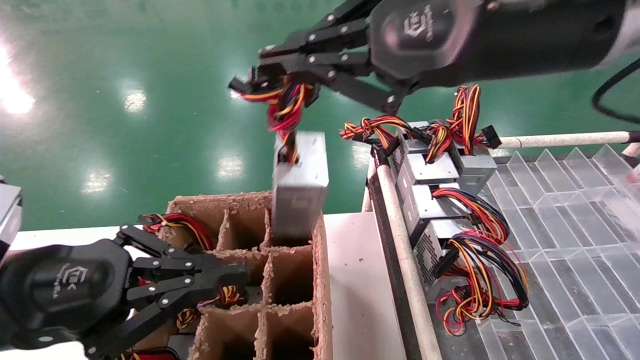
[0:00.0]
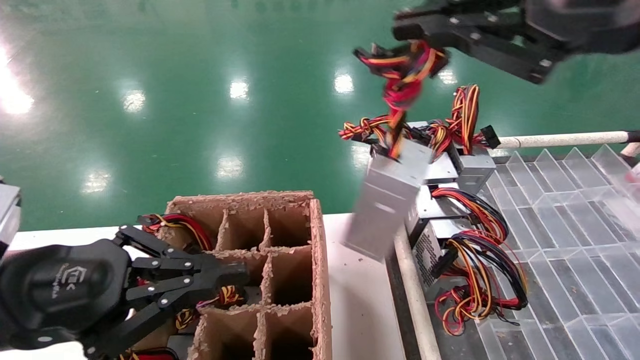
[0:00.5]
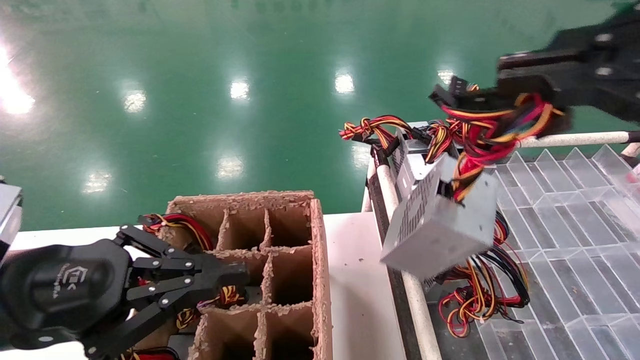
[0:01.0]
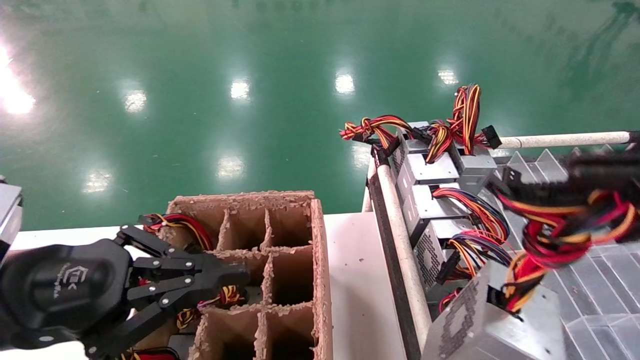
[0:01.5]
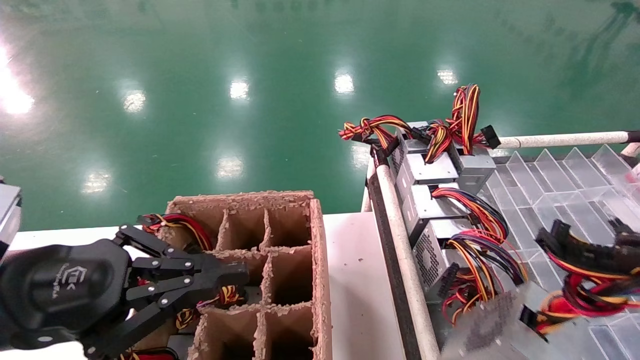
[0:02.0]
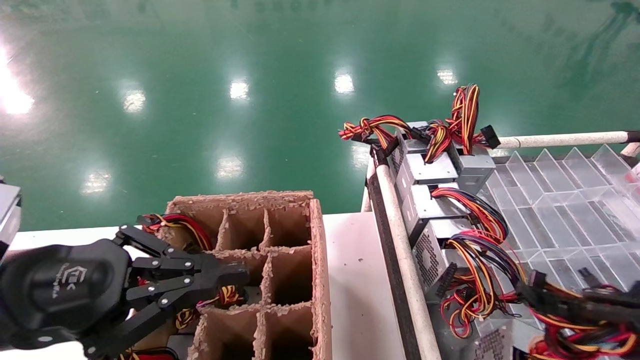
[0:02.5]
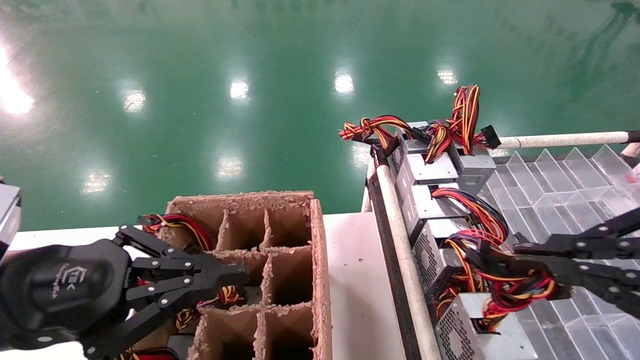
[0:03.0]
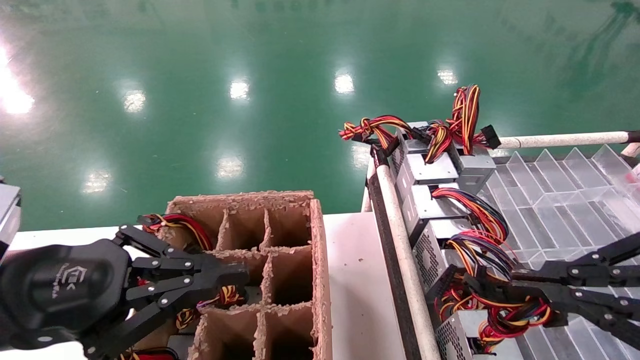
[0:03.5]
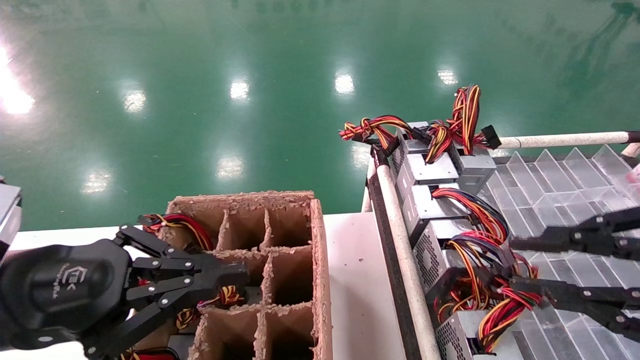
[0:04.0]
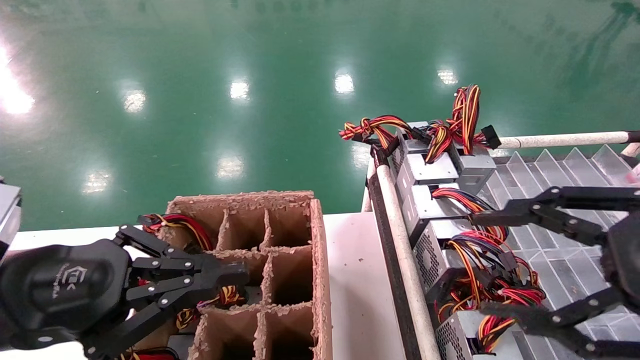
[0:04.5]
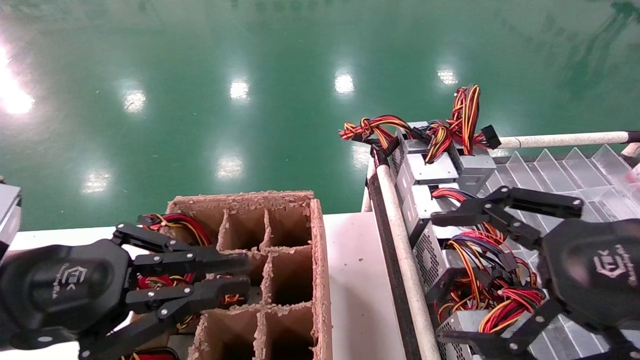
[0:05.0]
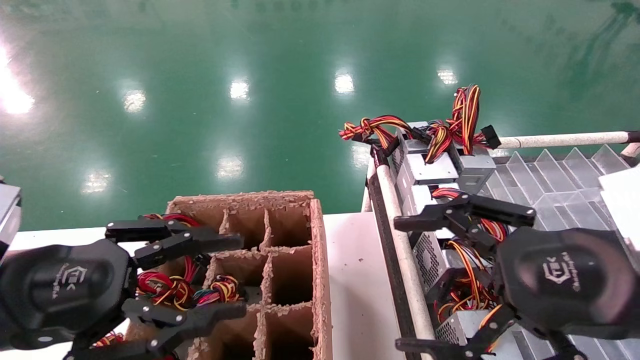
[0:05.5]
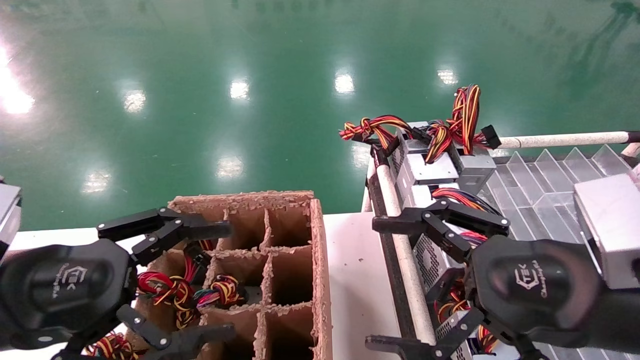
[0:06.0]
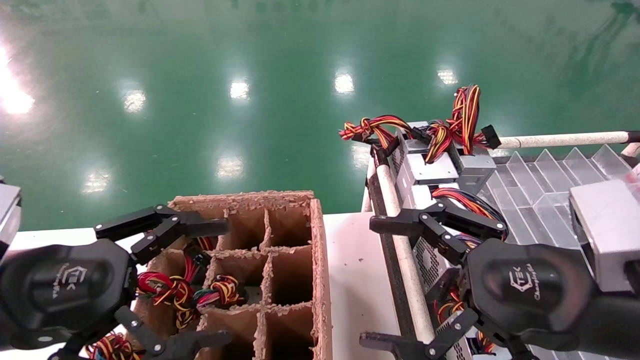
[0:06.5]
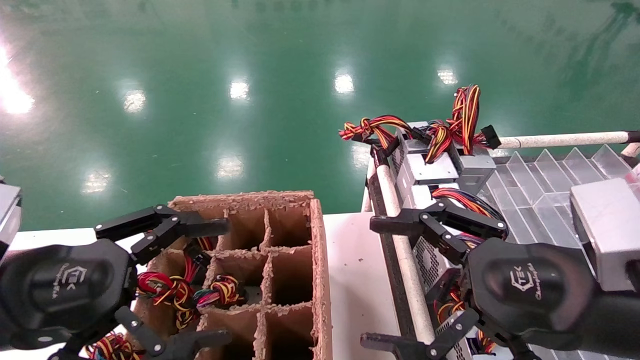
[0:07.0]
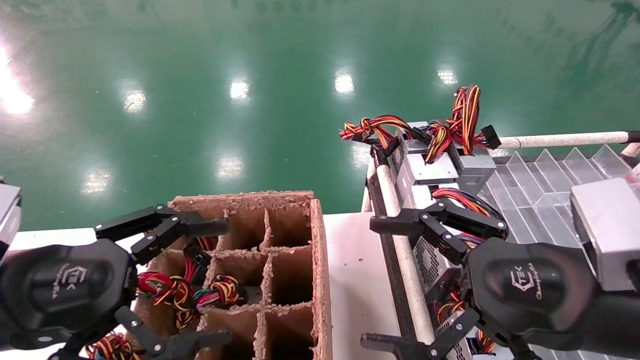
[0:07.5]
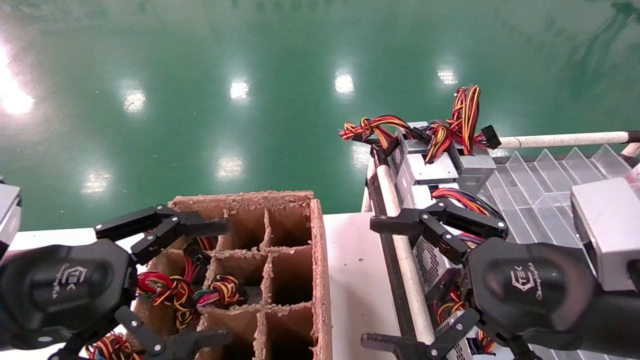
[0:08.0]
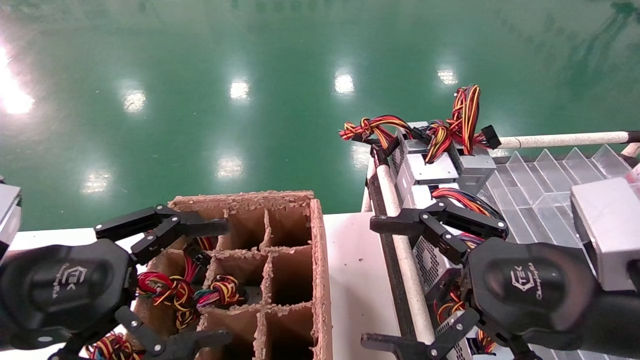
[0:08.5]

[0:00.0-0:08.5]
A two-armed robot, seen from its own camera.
Step, 0:00.0 to 0:03.5: Place the main unit power supply in the designated area.
0:00.0 to 0:02.0: The right gripper heads backward, to the right and downward, covering approximately 30 cm.
0:02.0 to 0:04.0: The right gripper moves forward, some 10 cm.
0:04.0 to 0:06.5: The left gripper opens its fingers; the right gripper heads to the left, forward and downward, covering some 15 cm, and opens.
0:06.5 to 0:08.5: The two grippers keep their place.

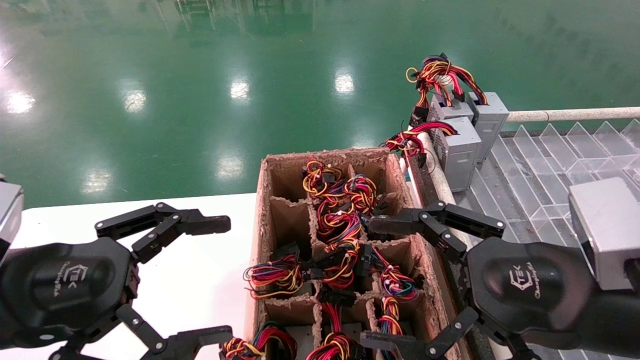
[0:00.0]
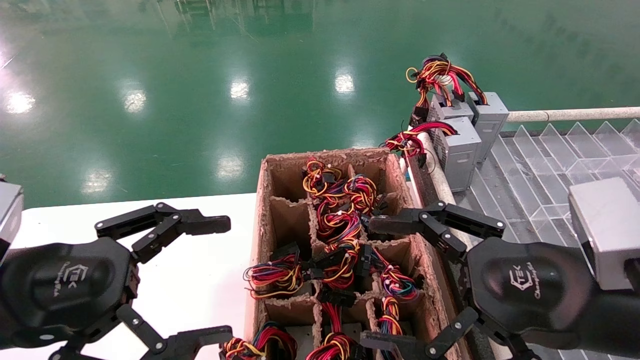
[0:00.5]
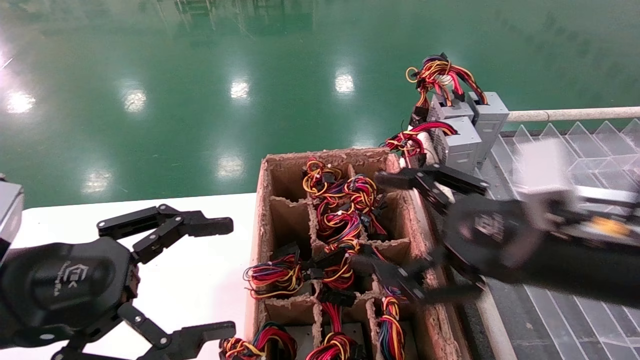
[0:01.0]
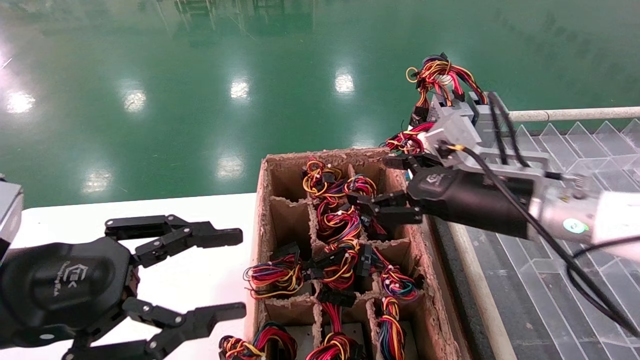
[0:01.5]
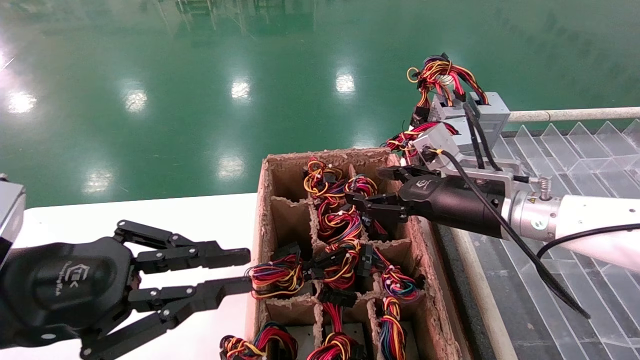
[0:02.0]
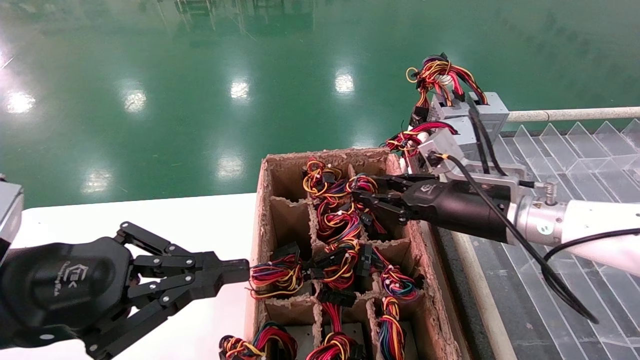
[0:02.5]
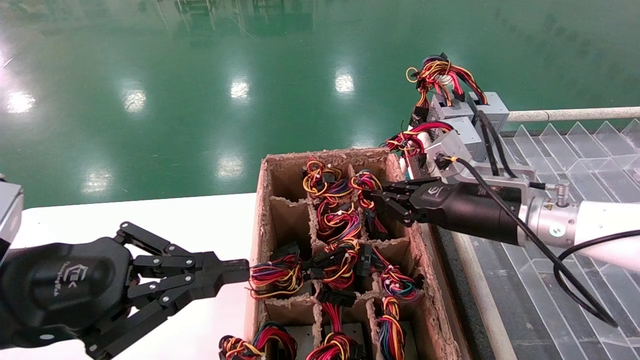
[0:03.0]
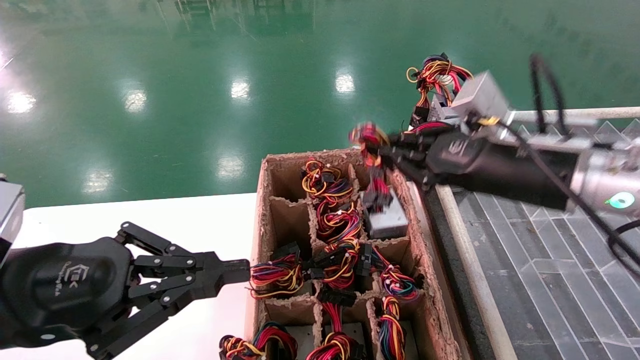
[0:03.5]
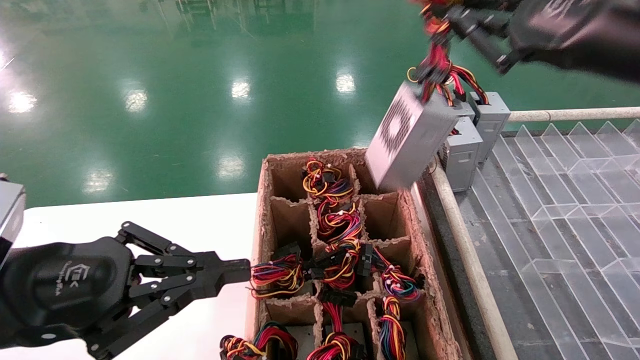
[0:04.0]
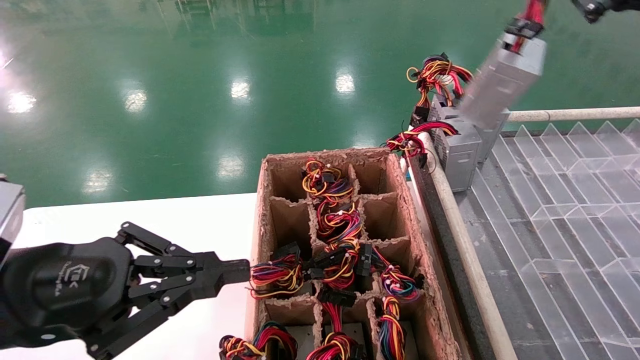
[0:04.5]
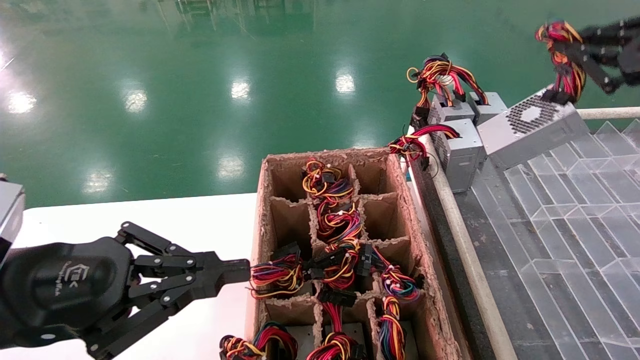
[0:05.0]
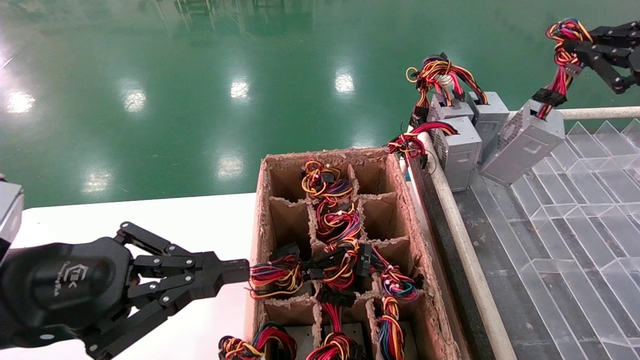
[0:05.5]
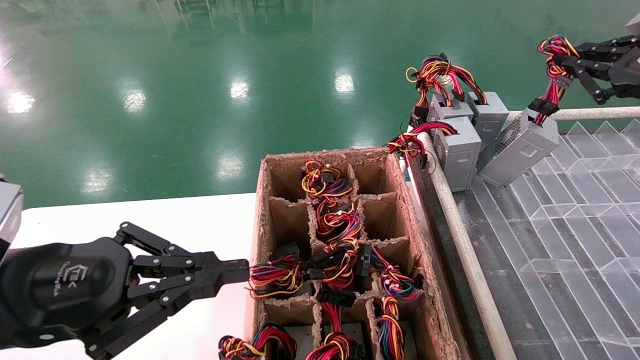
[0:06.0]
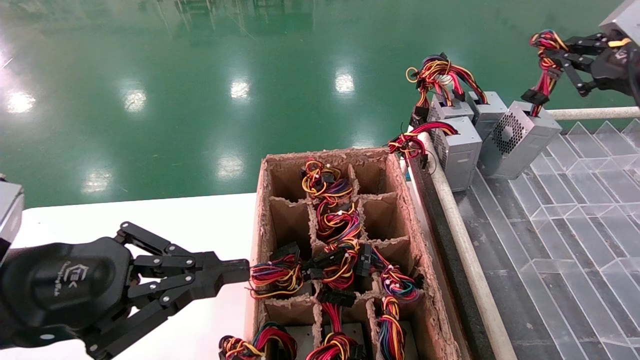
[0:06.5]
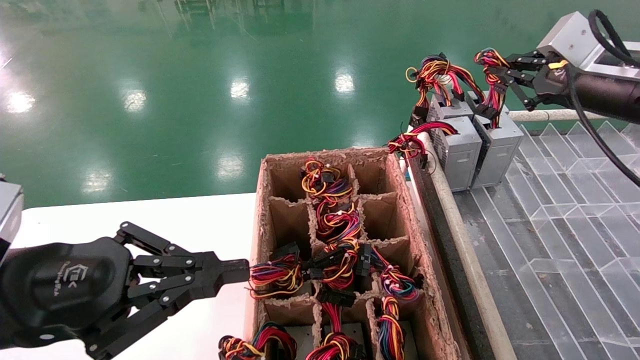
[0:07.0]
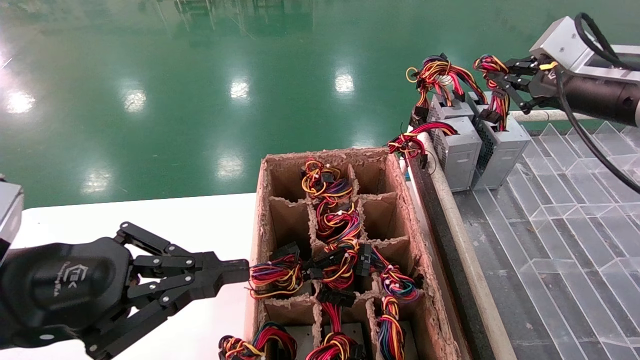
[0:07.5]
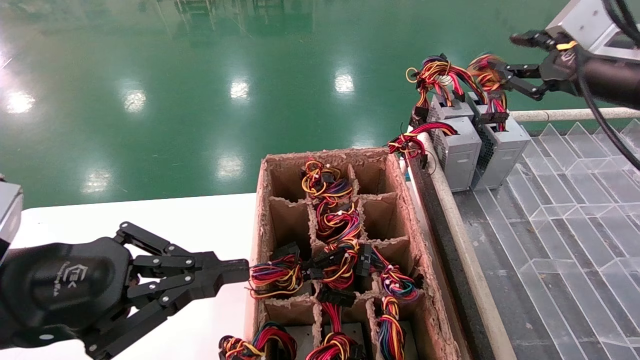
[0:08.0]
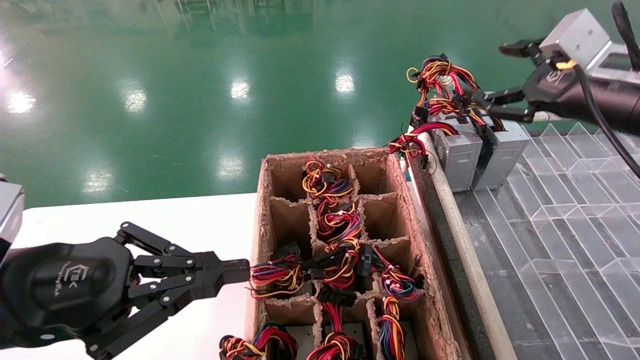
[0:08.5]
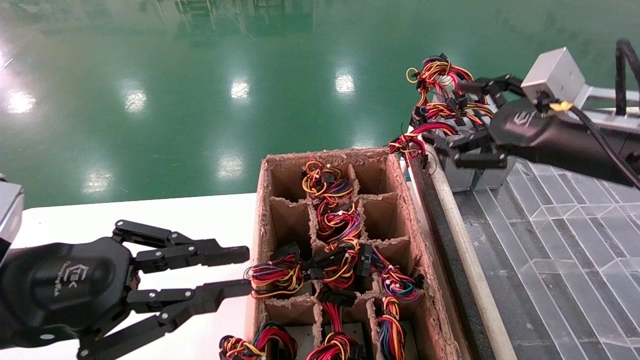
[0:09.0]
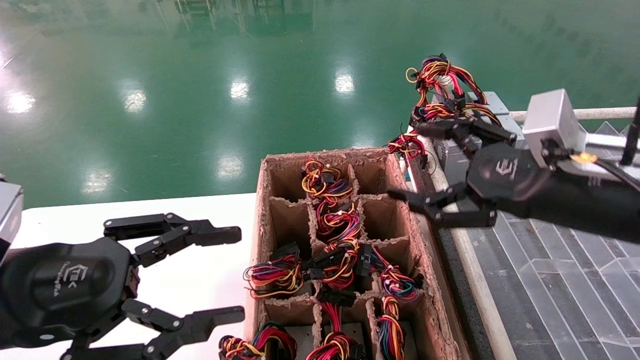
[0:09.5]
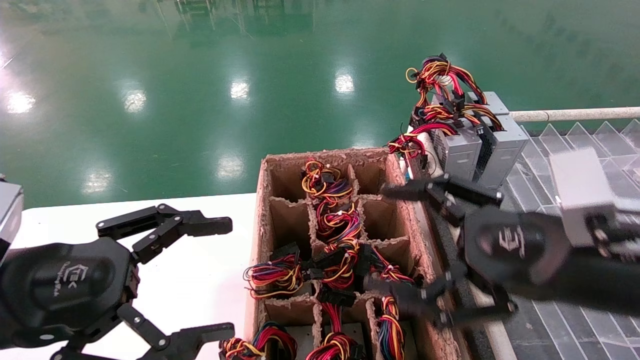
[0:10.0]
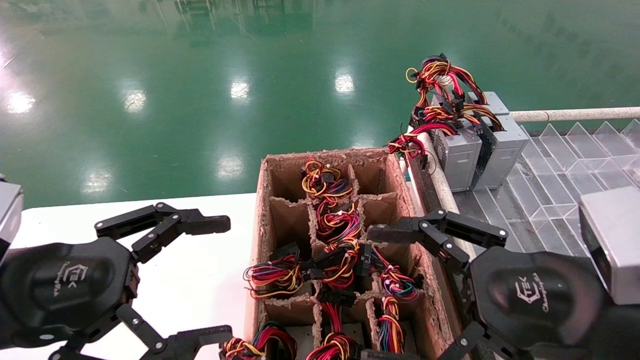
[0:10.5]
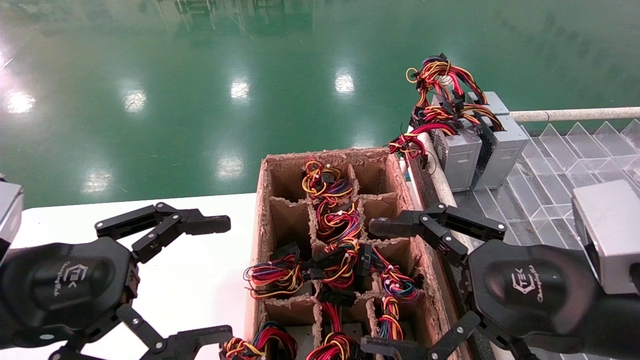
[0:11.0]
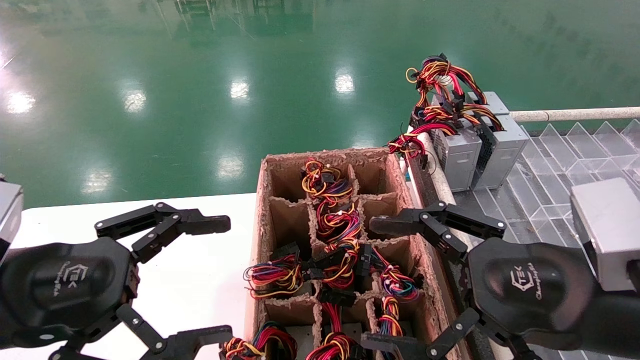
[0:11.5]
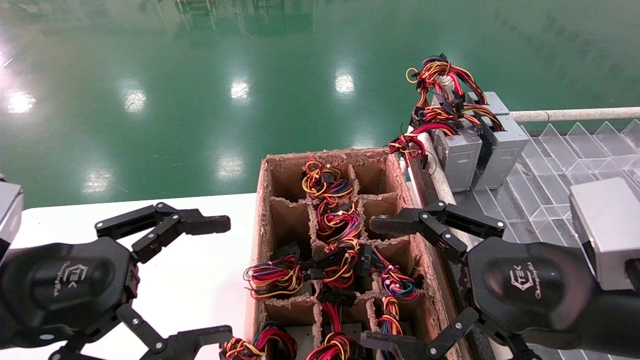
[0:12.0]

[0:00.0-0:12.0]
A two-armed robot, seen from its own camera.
Step, 0:01.5 to 0:03.0: Grab the main unit power supply from the containment box.
Step, 0:03.5 to 0:08.0: Place the main unit power supply in the designated area.
0:00.0 to 0:02.0: The left gripper closes its fingers, while the right gripper moves forward, roughly 15 cm.
0:02.0 to 0:04.0: The right gripper travels upward and backward by approximately 20 cm, and closes.
0:04.0 to 0:06.0: The right gripper travels to the right and forward by some 15 cm.
0:06.0 to 0:08.0: The right gripper is displaced to the left by about 5 cm.
0:08.0 to 0:10.0: The left gripper opens, while the right gripper heads backward, downward and to the left, covering about 25 cm, and opens.
0:10.0 to 0:12.0: There are only small adjustments of the grippers.
